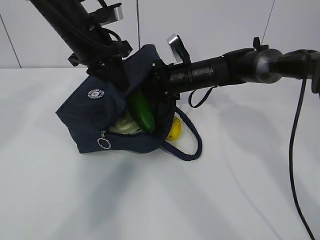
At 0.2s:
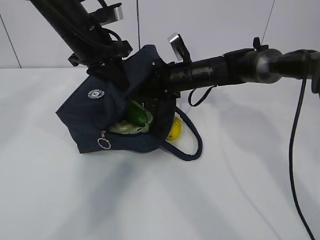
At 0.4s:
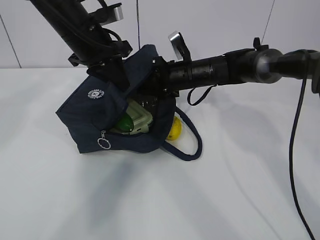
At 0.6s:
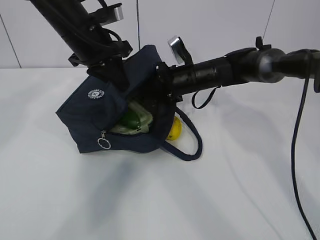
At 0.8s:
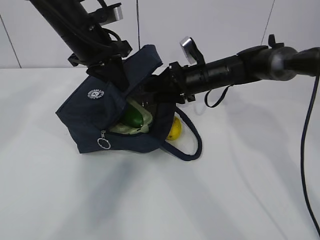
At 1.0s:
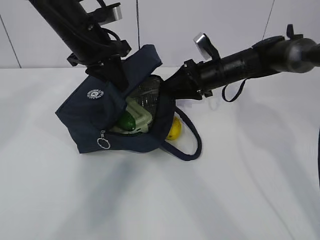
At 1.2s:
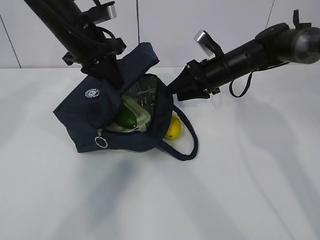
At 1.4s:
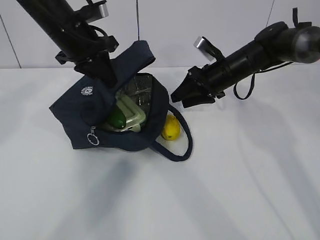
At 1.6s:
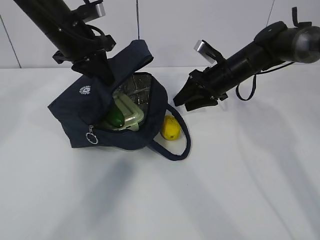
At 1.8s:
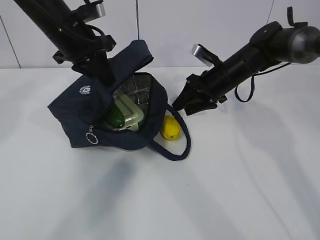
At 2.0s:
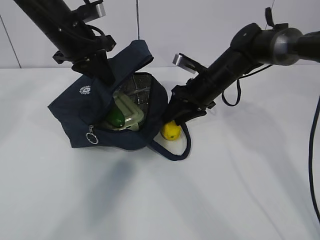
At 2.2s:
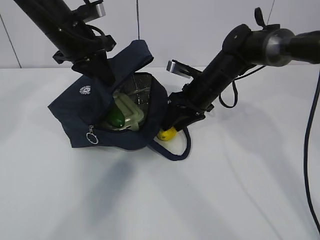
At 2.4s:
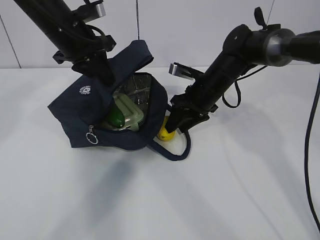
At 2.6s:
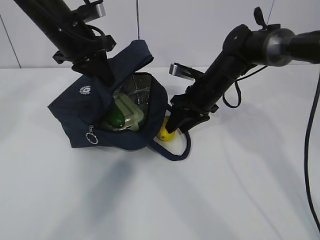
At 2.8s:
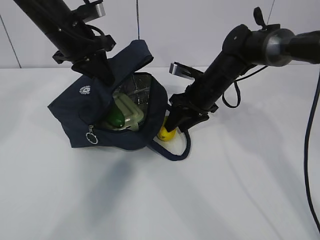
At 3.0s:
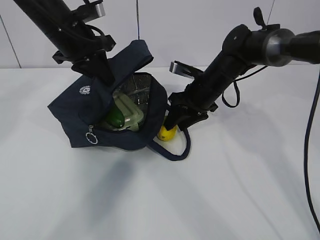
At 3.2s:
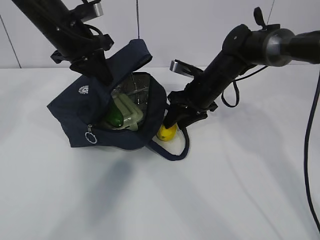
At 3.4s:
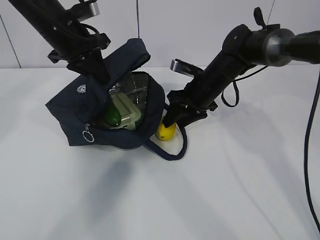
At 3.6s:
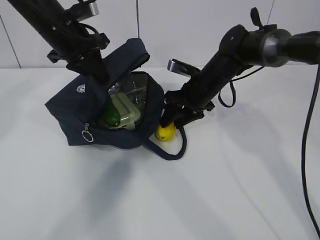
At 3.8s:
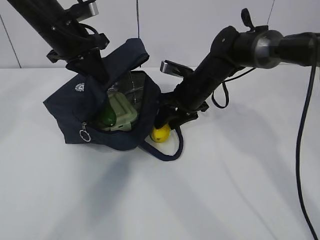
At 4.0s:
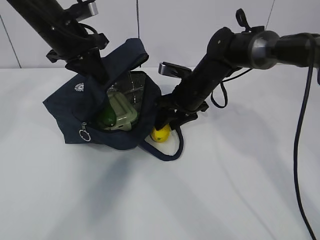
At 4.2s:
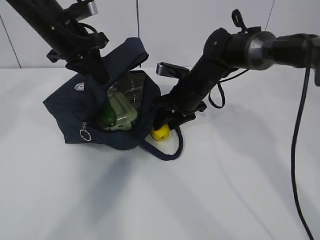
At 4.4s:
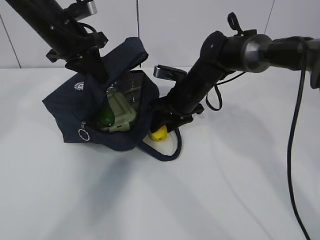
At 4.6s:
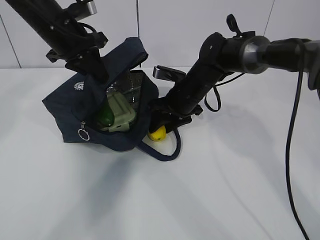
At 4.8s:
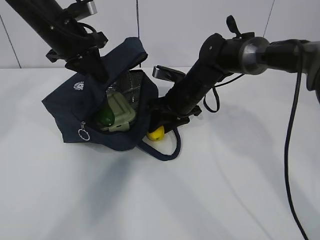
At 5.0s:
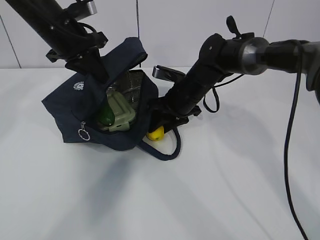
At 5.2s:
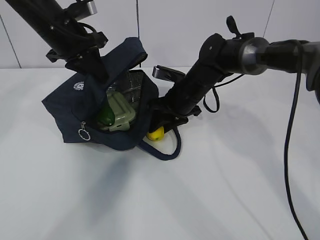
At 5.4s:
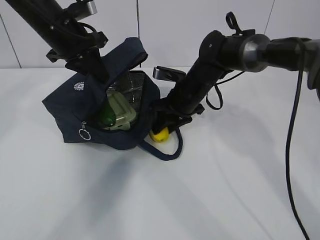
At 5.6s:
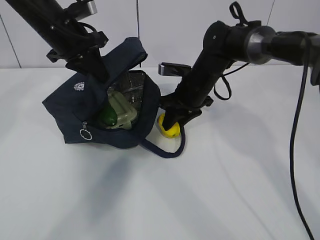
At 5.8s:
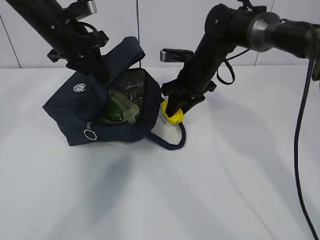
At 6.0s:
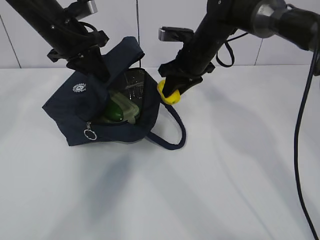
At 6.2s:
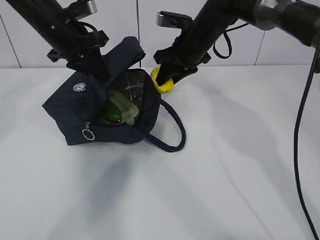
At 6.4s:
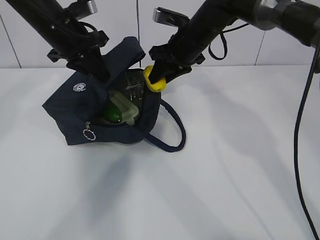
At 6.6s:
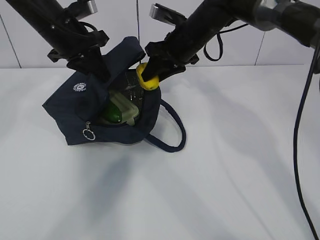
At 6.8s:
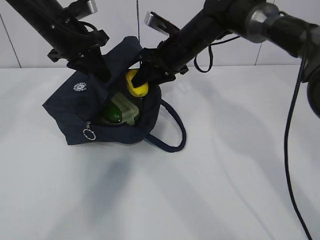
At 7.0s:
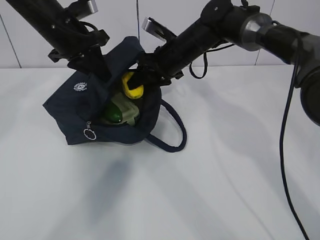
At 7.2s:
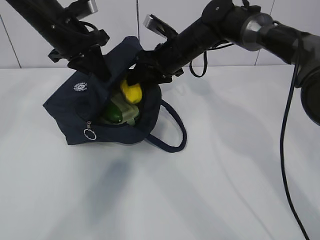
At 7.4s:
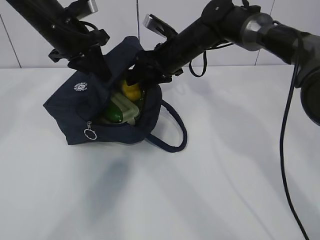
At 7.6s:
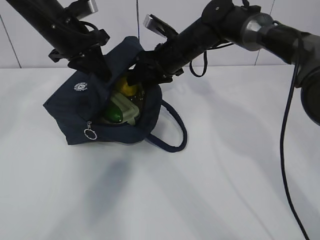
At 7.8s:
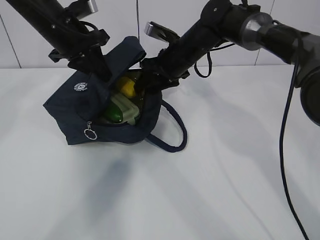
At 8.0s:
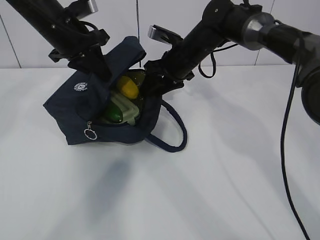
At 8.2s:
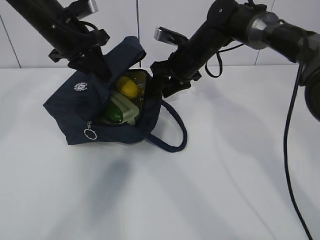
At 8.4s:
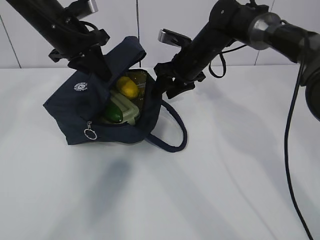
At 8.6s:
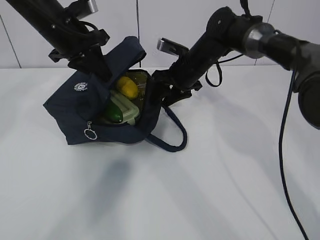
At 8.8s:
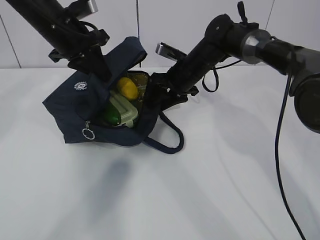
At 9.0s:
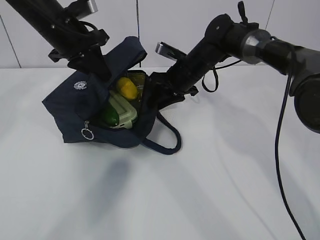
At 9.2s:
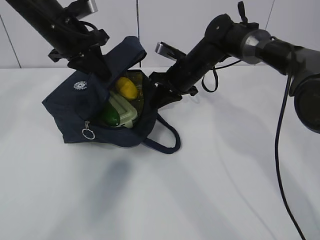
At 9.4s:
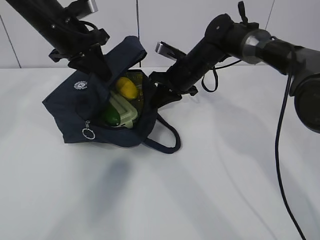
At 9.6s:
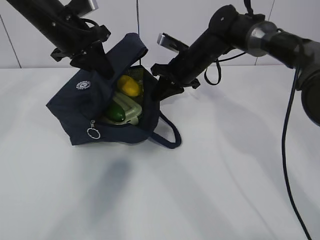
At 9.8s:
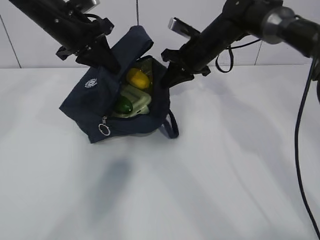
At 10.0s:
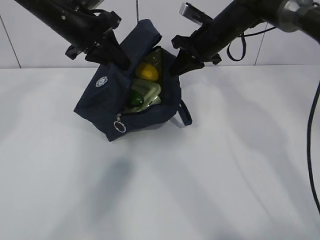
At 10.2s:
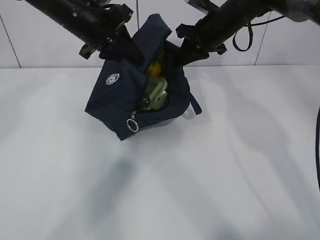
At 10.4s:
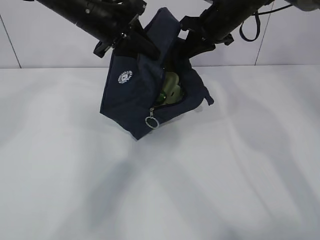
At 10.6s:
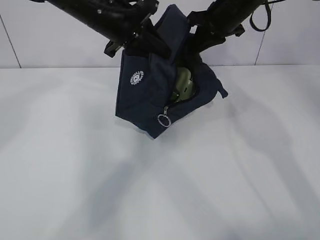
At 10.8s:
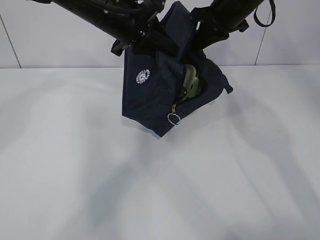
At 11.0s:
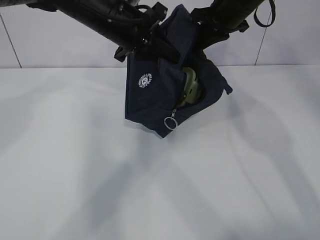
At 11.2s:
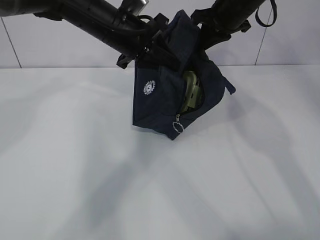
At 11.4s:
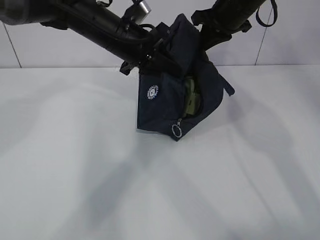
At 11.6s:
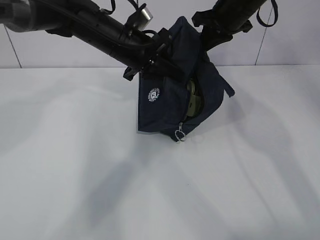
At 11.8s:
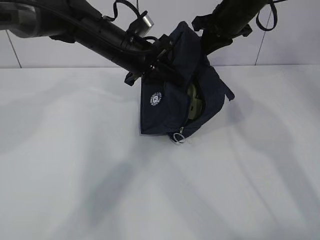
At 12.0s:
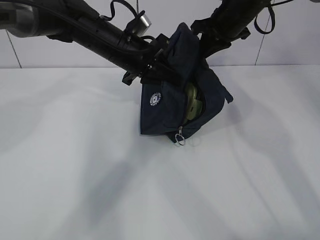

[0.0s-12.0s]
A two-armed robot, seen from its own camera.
Step, 0.0s to 2.6s: Secure the lunch bag with your left hand.
Step, 2.8s to 3.4s: Grab the lunch bag with your right hand.
Step, 3.6s to 7.0s: Stand the lunch bag upright with your right hand.
0.0s to 1.6s: The right gripper goes some 10 cm to the right.
1.6s to 3.0s: The right gripper moves about 5 cm.
3.0s to 4.4s: There are only small adjustments of the grippers.
4.4s to 6.0s: The right gripper shifts roughly 10 cm upward.
7.6s to 9.0s: The right gripper shifts by some 5 cm.
9.0s to 10.4s: The right gripper heads upward and to the right, covering some 15 cm; the left gripper goes approximately 5 cm to the right.
10.4s to 12.0s: The left gripper goes some 5 cm downward.

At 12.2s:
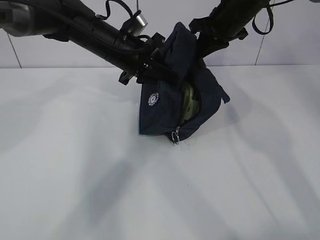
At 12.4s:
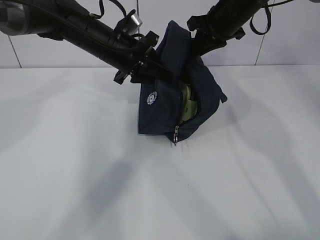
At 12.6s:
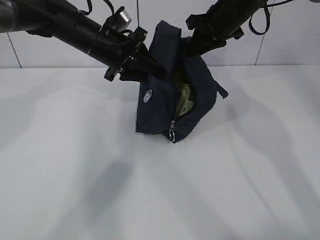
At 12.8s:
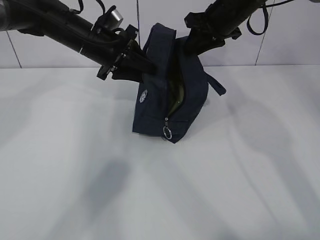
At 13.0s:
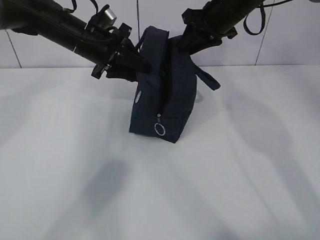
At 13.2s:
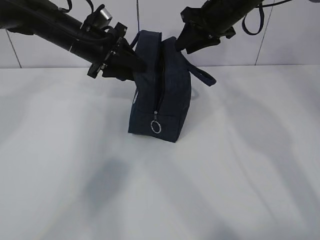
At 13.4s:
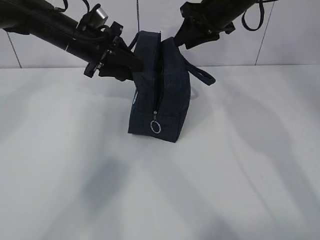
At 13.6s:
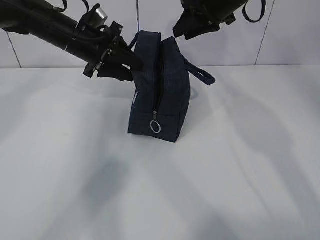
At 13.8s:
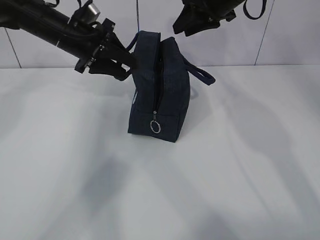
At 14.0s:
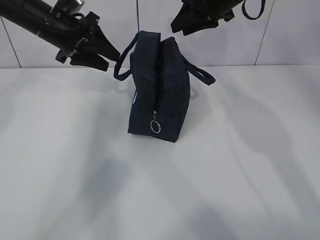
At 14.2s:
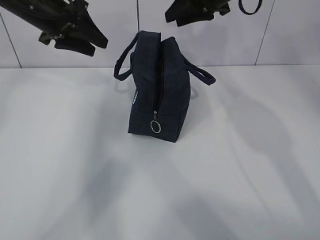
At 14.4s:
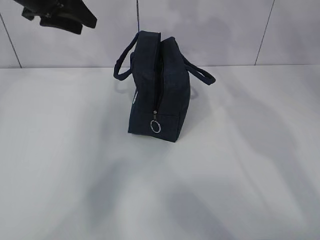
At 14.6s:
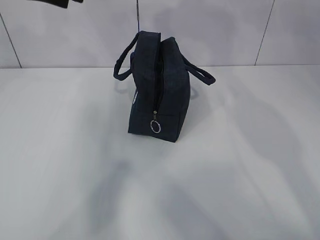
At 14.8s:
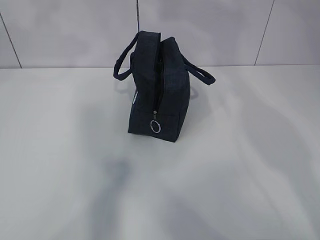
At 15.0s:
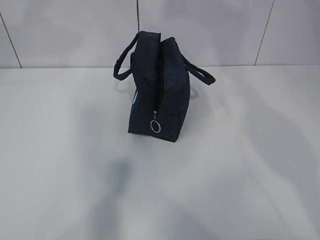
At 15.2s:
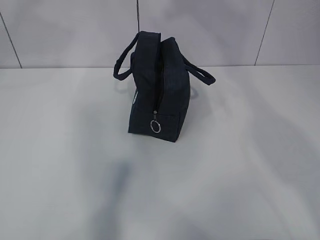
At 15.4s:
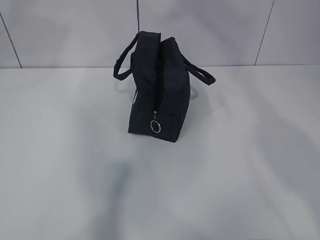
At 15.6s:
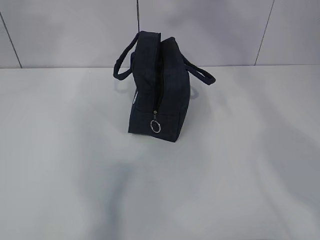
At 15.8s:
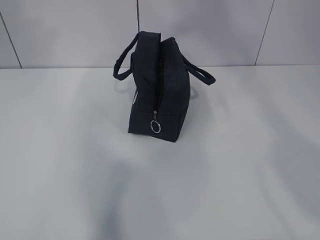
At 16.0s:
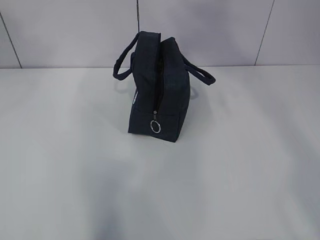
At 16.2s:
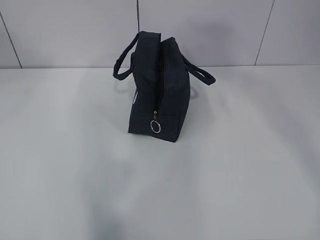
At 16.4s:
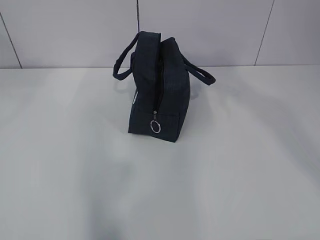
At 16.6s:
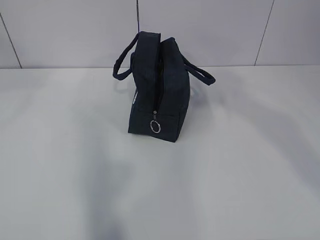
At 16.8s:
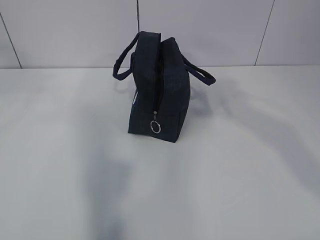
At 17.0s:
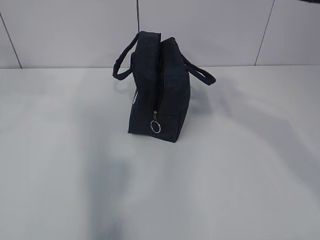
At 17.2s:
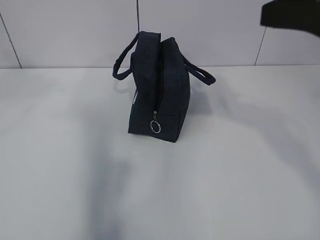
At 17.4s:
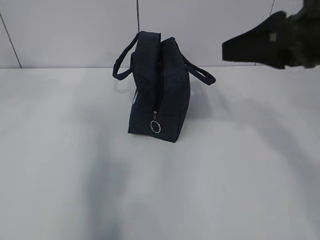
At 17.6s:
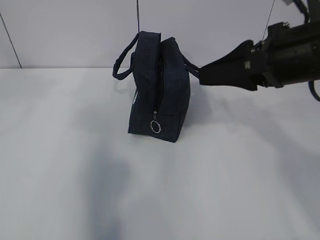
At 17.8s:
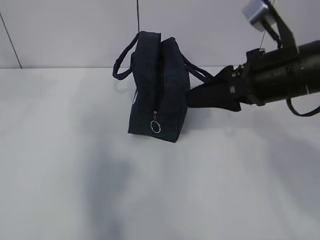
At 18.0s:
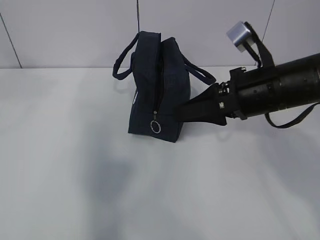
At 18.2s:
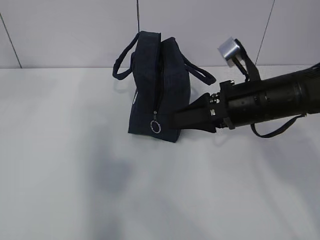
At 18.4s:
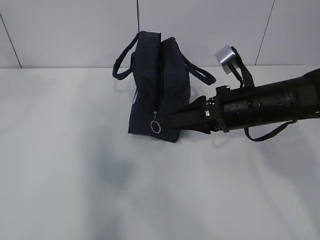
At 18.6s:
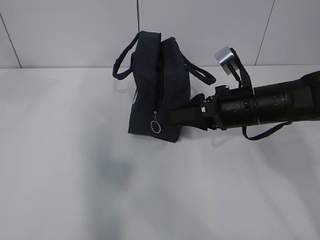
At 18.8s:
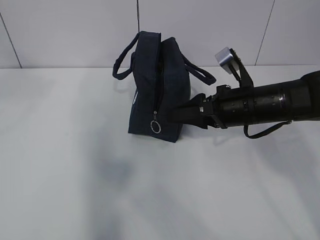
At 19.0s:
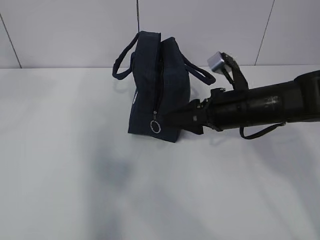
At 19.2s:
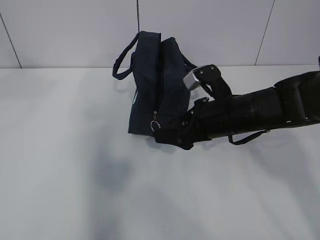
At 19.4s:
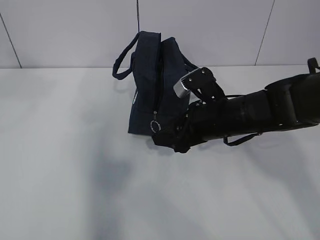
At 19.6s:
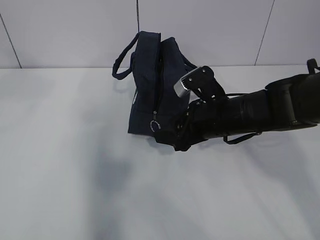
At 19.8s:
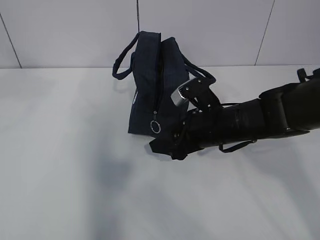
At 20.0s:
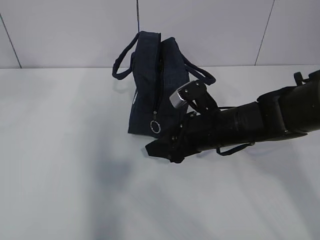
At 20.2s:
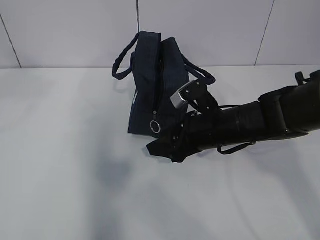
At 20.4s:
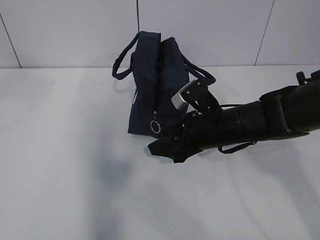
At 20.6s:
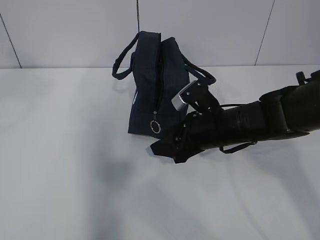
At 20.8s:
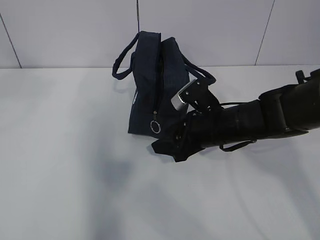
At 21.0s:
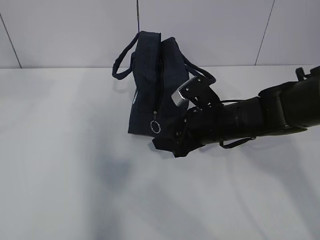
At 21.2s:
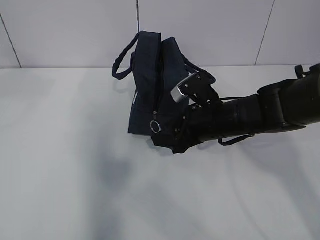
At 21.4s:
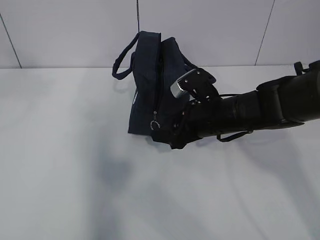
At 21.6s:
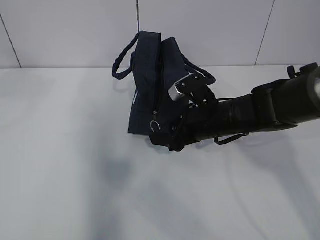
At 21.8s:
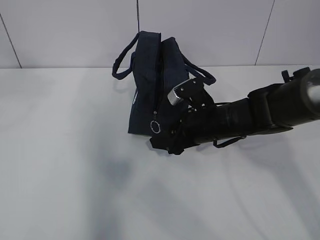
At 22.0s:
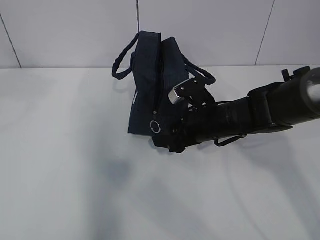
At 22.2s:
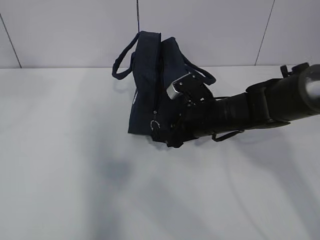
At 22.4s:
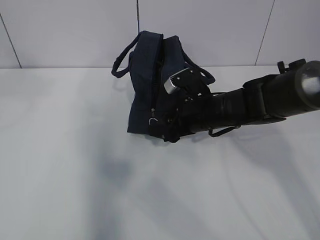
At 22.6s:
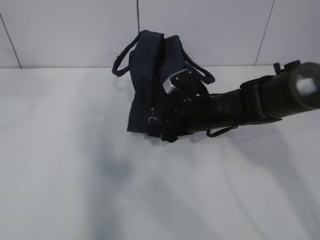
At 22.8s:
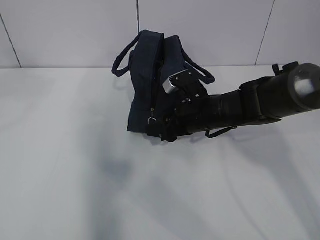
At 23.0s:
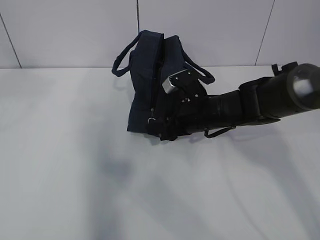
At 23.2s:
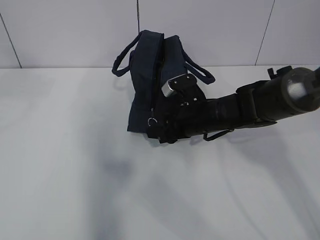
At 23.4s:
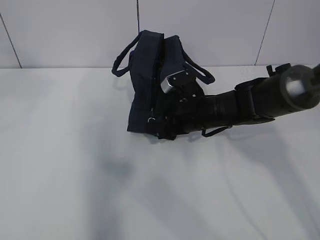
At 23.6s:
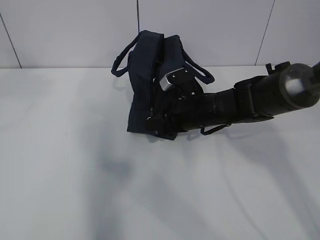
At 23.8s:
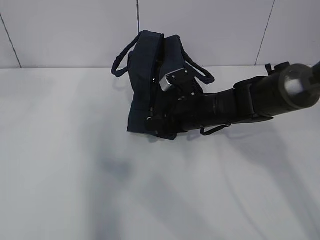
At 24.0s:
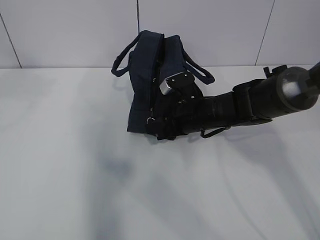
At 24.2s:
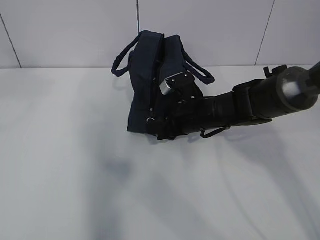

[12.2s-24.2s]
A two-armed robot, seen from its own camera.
12.2s to 13.8s: The left gripper travels to the left by roughly 10 cm, and opens its fingers. Meanwhile the right gripper opens up.
13.8s to 15.2s: The two grippers go some 30 cm upward and backward.
15.2s to 16.6s: The right gripper is displaced backward and downward by approximately 20 cm. Meanwhile the left gripper travels backward by approximately 15 cm.
16.6s to 18.2s: The left gripper ends up roughly 5 cm from where it was. Meanwhile the right gripper is displaced downward and forward by some 30 cm, and opens up.
18.2s to 19.8s: The right gripper goes about 5 cm downward.
19.8s to 21.2s: Neither gripper changes place.
21.2s to 22.6s: The grippers move only a little.
22.6s to 24.2s: The right gripper closes.
